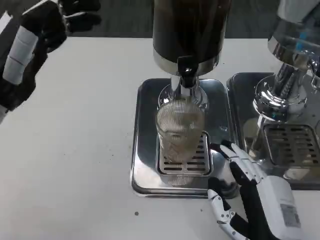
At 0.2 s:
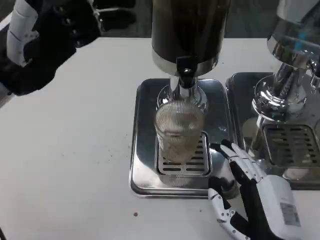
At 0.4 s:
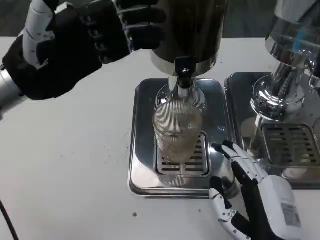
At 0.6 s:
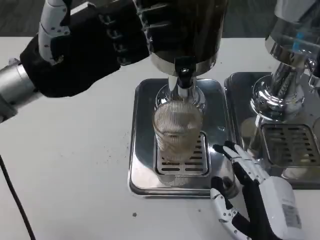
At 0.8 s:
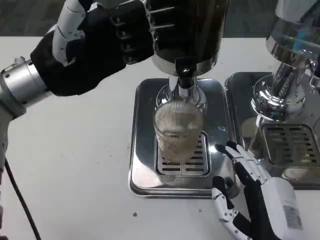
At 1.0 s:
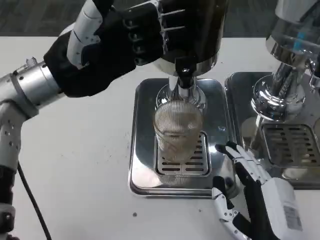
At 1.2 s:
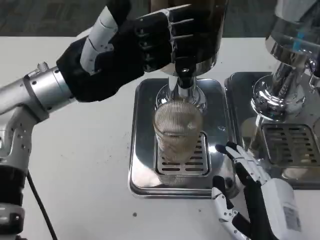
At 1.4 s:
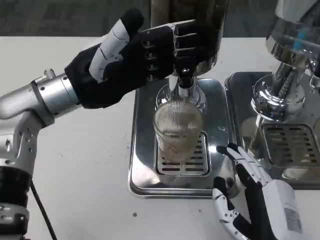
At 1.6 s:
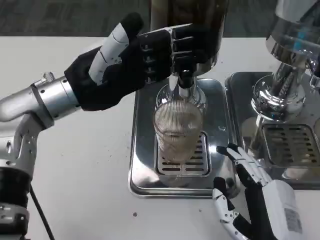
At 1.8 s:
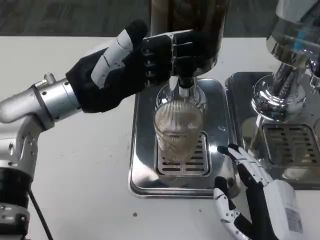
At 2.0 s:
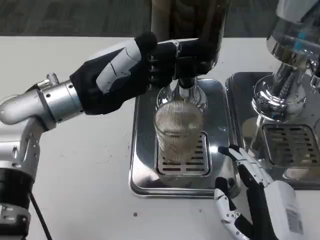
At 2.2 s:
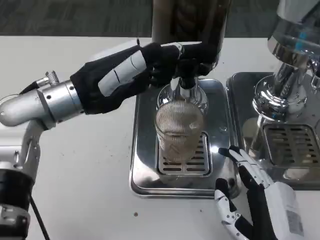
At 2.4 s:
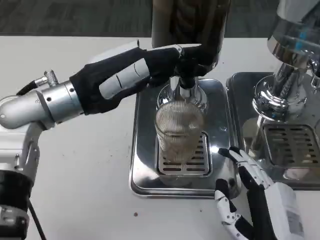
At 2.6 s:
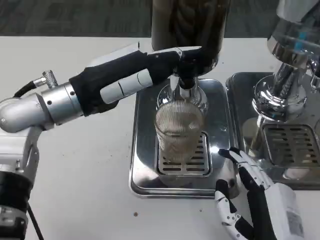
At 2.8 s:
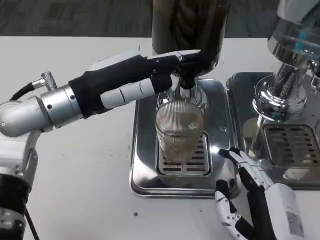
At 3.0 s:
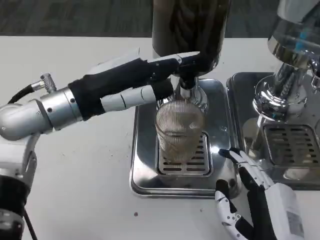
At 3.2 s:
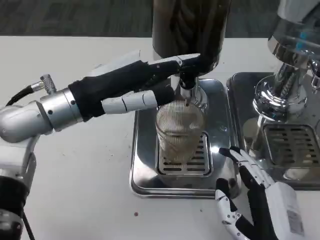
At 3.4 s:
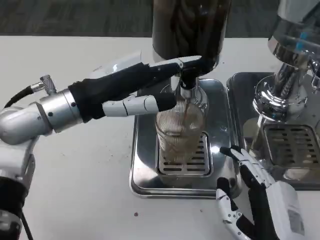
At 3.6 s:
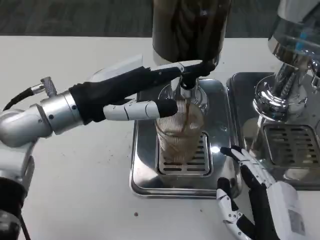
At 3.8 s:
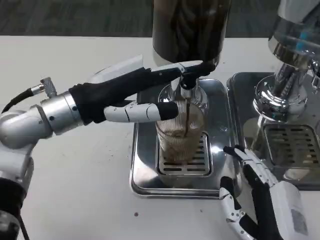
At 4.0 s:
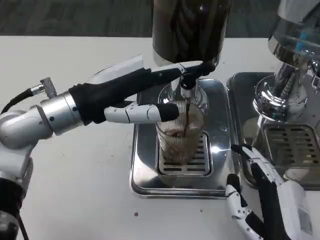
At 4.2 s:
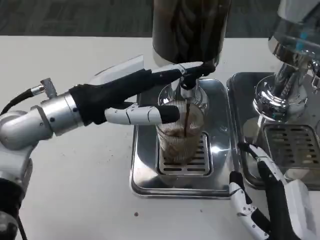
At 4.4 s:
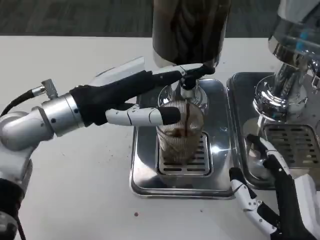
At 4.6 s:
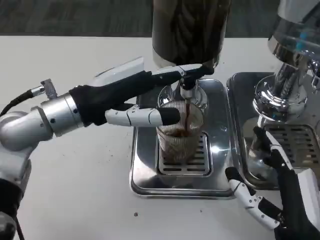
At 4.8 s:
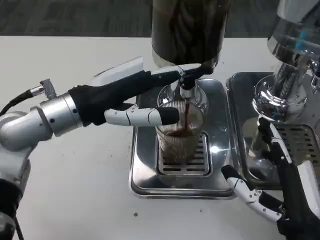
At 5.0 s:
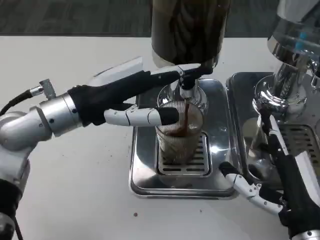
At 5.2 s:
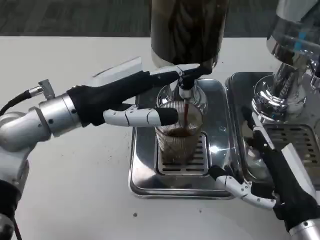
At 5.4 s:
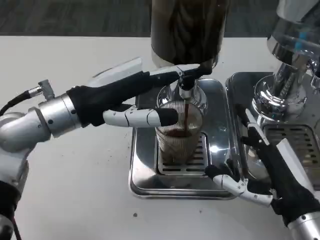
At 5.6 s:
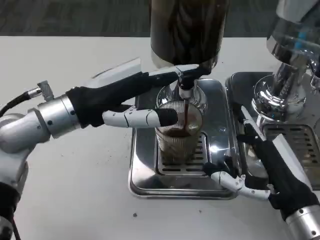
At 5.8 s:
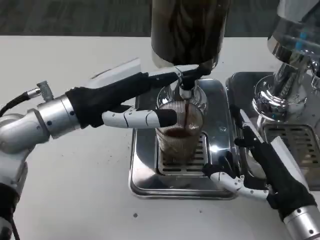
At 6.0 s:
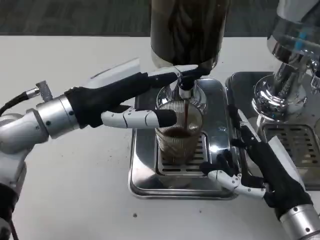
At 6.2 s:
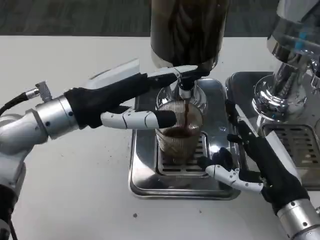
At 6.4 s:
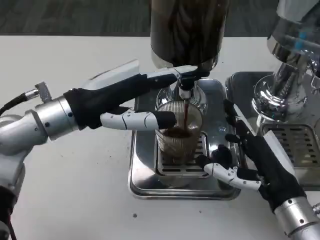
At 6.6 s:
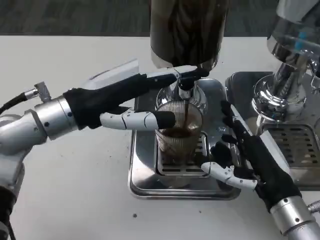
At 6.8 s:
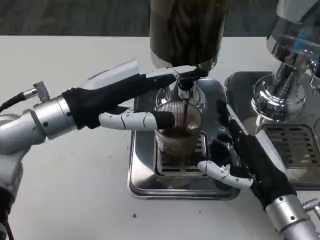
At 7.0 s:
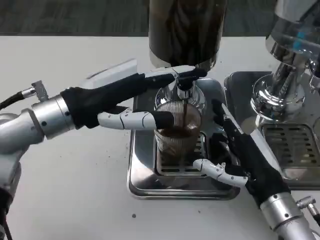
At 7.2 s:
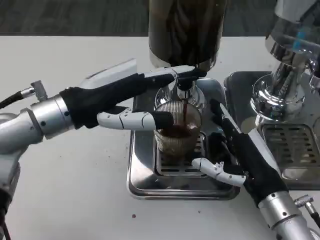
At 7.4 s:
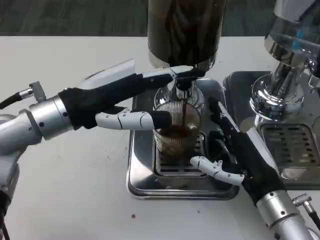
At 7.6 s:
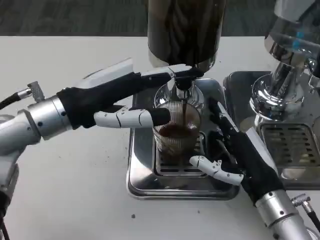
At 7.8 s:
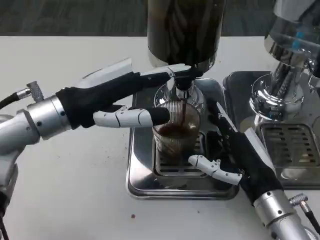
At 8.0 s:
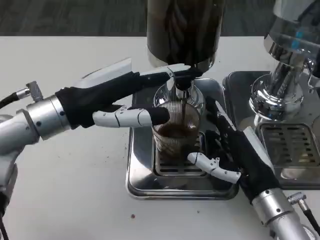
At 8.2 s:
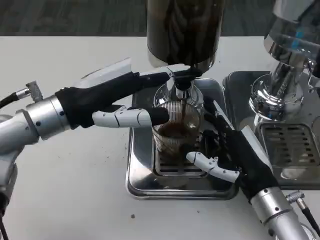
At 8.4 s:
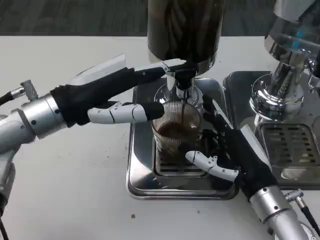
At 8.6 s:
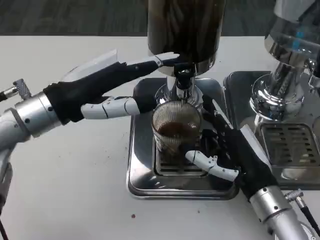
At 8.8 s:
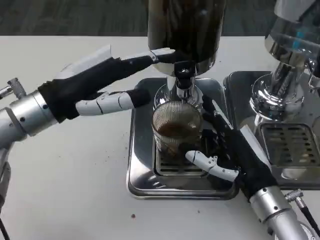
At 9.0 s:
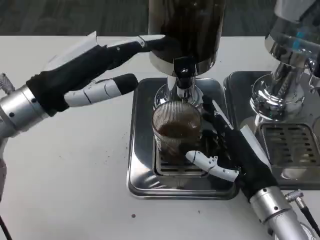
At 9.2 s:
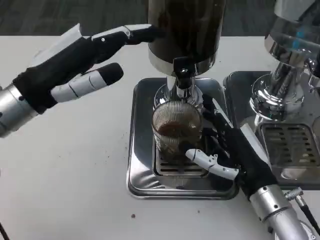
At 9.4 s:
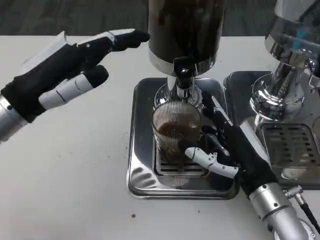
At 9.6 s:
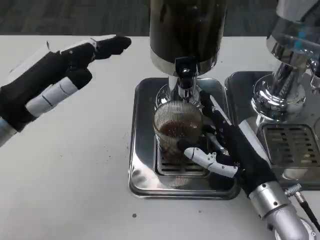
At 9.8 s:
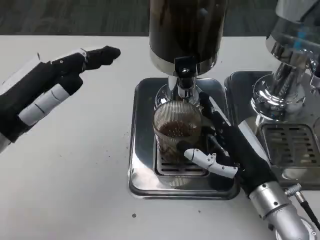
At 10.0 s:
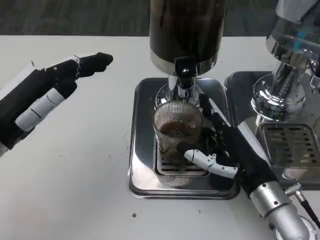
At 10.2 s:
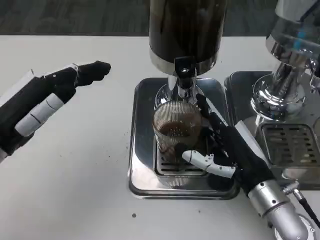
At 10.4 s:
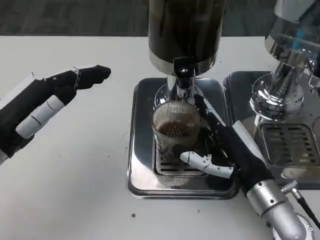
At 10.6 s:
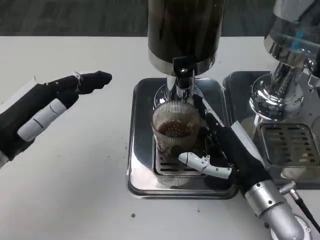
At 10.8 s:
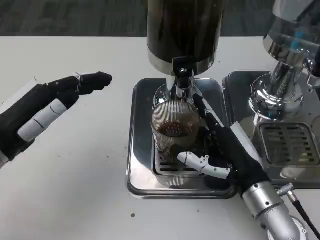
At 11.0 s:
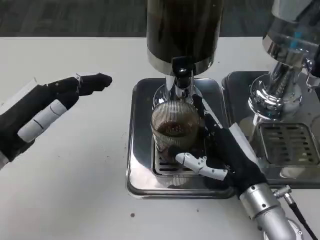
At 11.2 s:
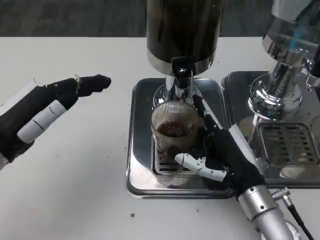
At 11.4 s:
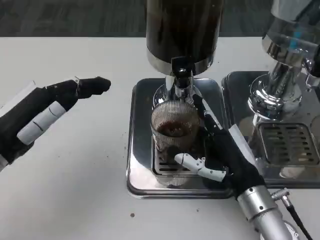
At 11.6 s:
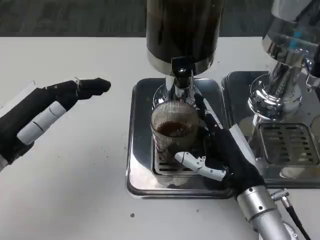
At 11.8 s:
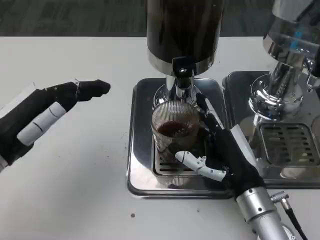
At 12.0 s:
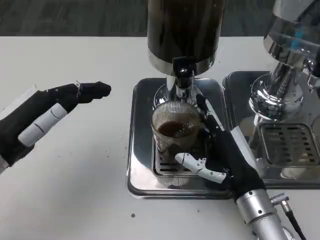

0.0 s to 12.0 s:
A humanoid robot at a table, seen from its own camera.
Task of the whole recording: Grasp the cup under the faucet to collect the drink, then remove the cup.
0.0 to 1.6 s: The left hand goes approximately 10 cm to the right and forward.
4.4 to 6.0 s: The right hand goes some 5 cm forward.
9.0 to 10.4 s: The left hand moves downward and to the left, roughly 5 cm.
10.4 to 12.0 s: The hands make only small movements.

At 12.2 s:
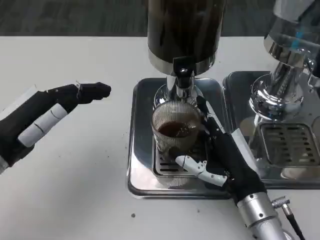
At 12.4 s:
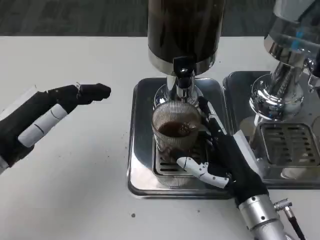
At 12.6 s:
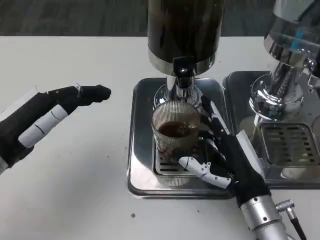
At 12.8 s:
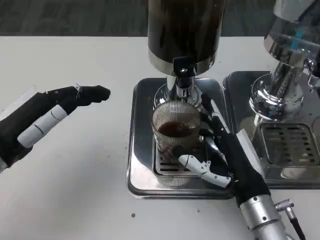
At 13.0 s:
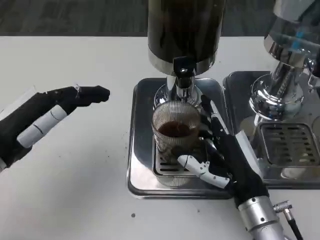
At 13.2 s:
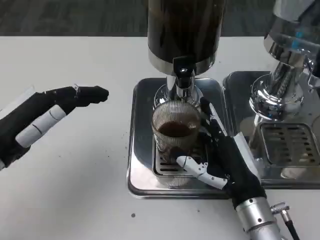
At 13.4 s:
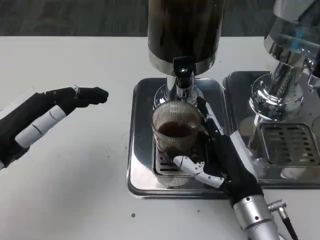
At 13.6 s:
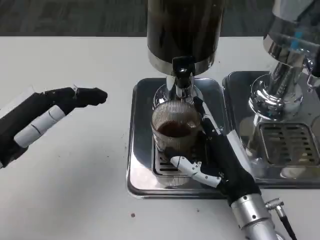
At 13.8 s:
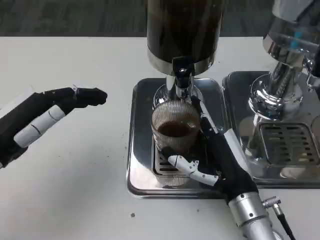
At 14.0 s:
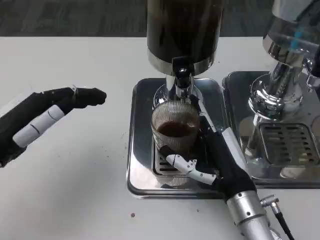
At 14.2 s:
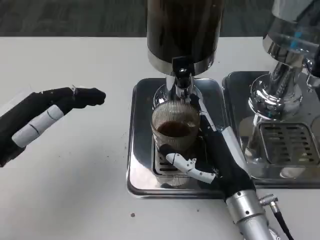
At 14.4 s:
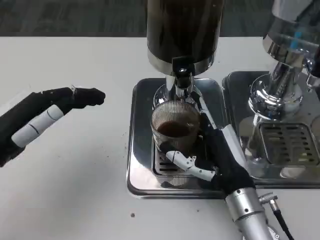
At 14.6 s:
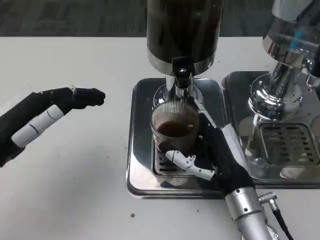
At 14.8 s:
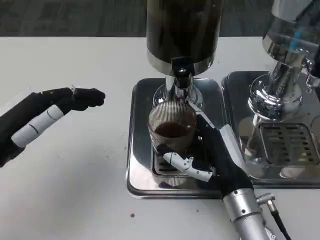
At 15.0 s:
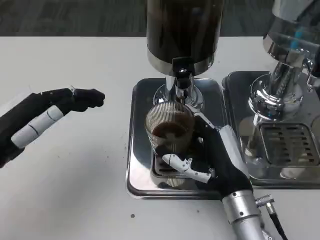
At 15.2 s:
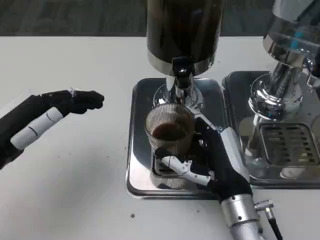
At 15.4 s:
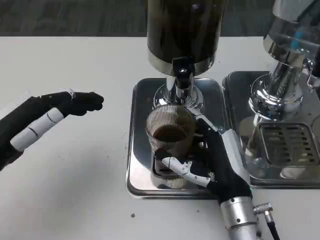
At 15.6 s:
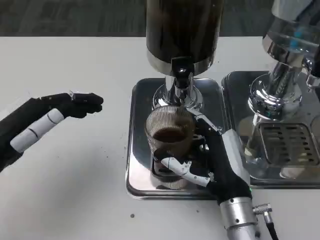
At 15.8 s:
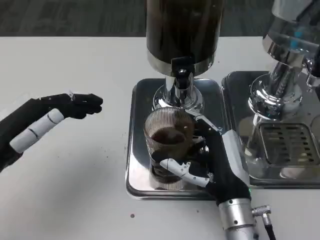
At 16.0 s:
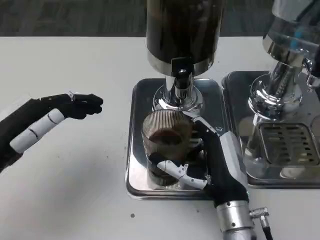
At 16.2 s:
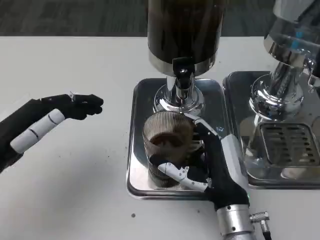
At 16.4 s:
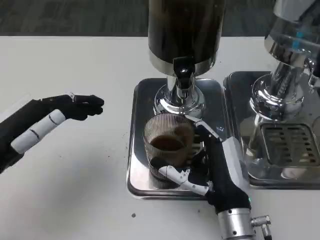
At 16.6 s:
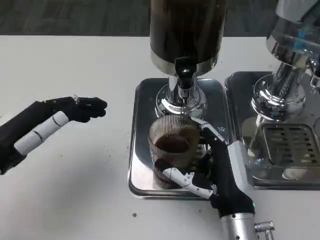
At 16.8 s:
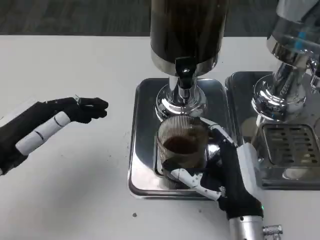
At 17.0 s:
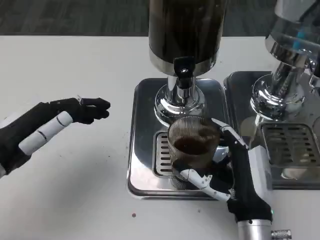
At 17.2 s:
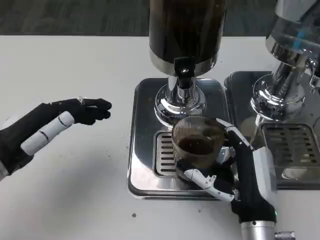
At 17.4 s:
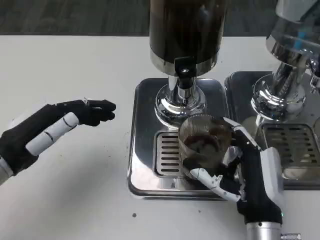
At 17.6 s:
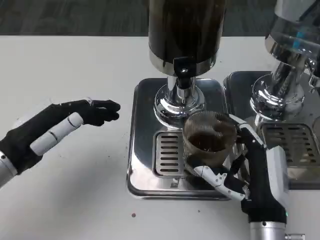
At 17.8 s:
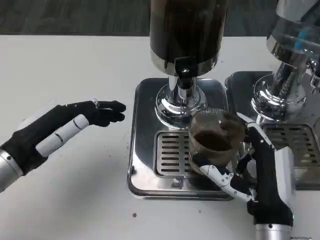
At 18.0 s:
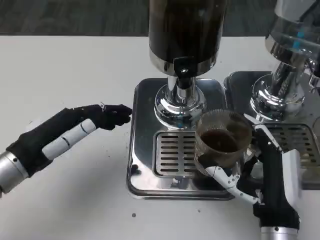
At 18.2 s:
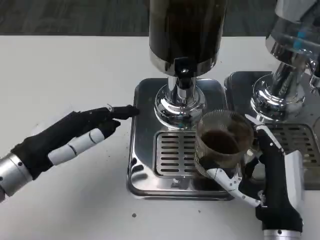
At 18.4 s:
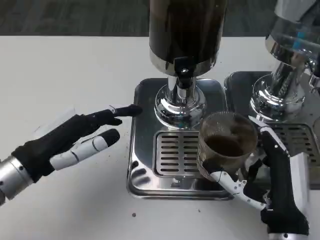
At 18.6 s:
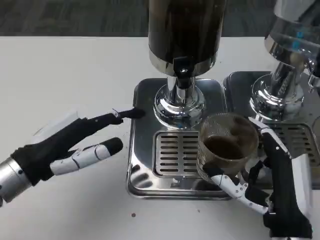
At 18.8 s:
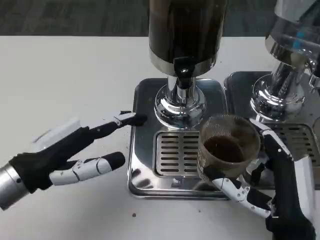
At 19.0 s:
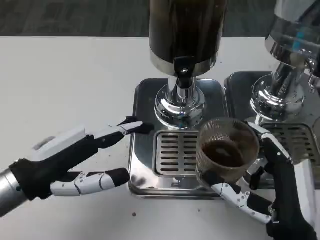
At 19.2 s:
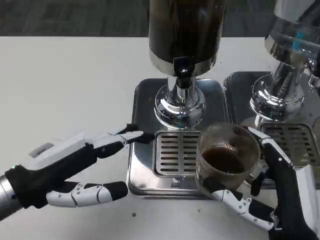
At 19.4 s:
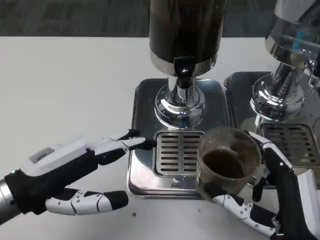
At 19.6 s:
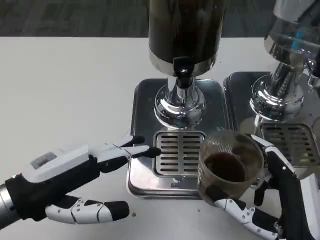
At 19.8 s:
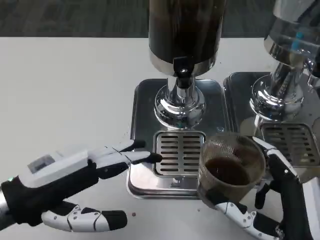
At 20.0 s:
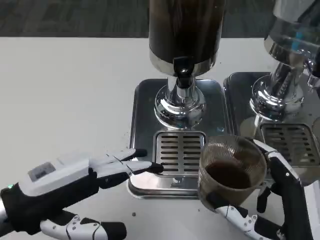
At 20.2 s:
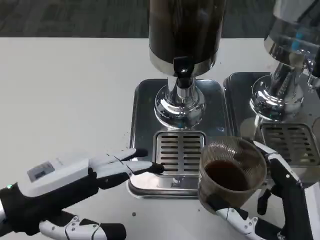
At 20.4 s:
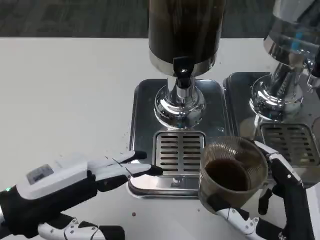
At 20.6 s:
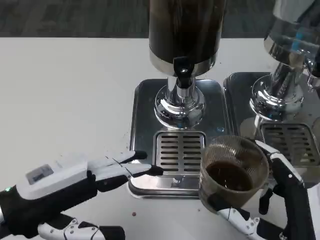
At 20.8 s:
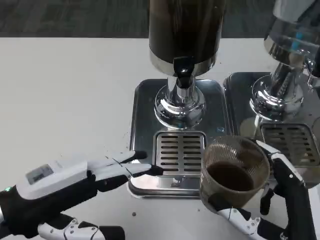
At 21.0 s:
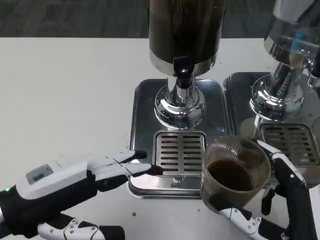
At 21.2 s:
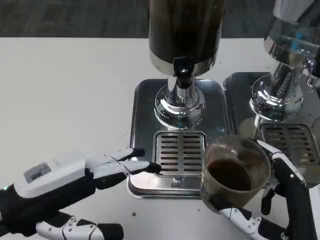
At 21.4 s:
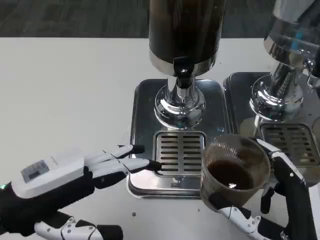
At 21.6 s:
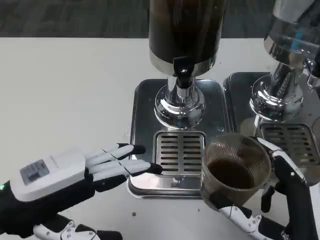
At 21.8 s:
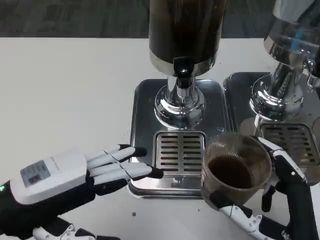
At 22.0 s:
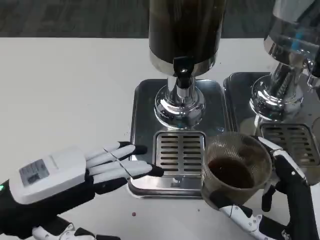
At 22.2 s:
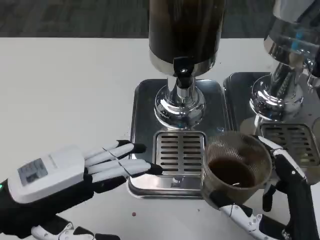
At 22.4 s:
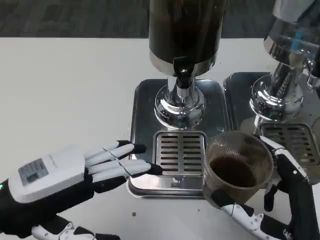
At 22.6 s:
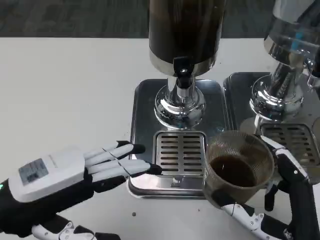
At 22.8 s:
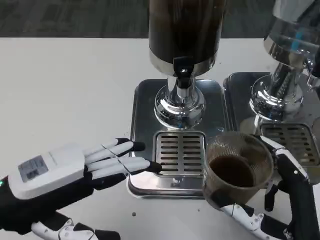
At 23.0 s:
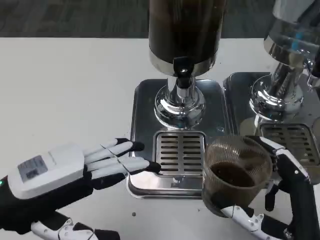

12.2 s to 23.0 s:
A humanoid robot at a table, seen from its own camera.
Task of the whole recording: Grasp the cup under the faucet to collect the drink, then remove the cup.
12.2 to 15.2 s: There are only small adjustments of the hands.
16.8 to 18.4 s: The right hand ends up some 5 cm from where it was.
18.4 to 20.0 s: The two hands go approximately 5 cm backward.
20.0 to 21.4 s: The two hands keep their place.
21.4 to 23.0 s: The hands stay close to where they were, moving slightly.
